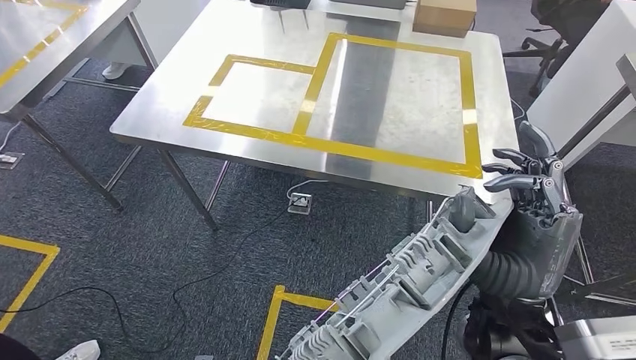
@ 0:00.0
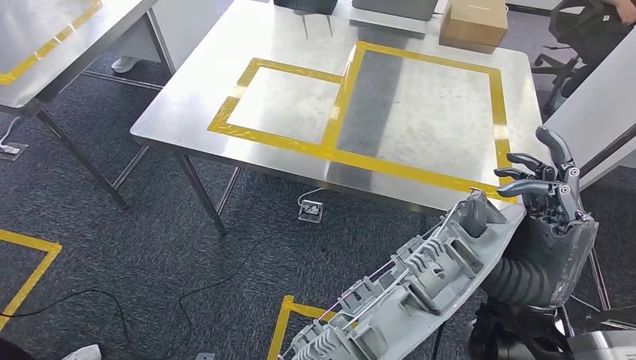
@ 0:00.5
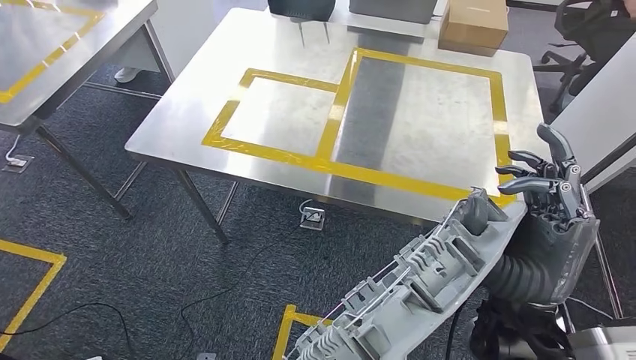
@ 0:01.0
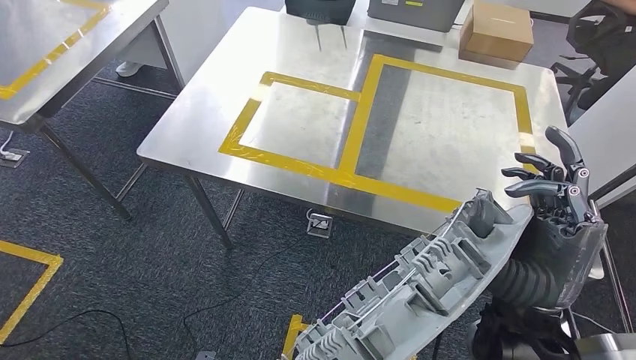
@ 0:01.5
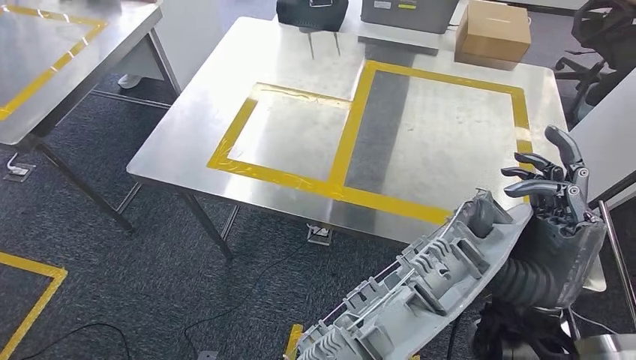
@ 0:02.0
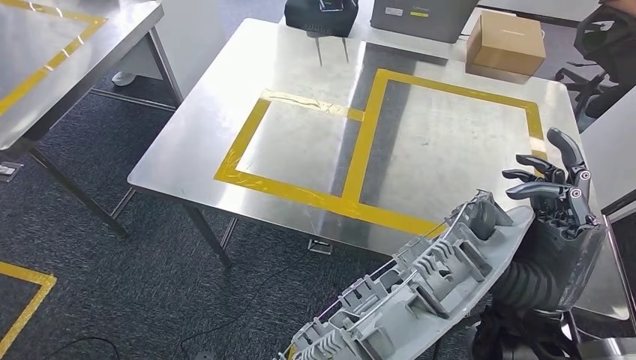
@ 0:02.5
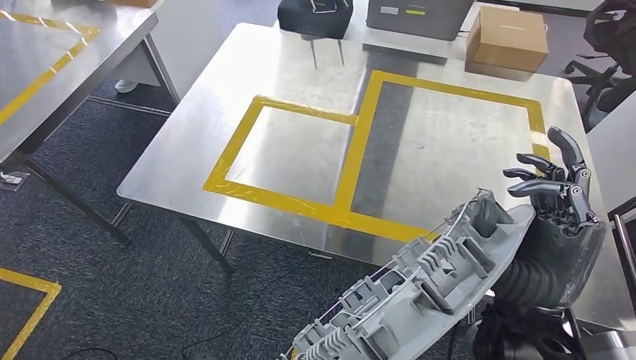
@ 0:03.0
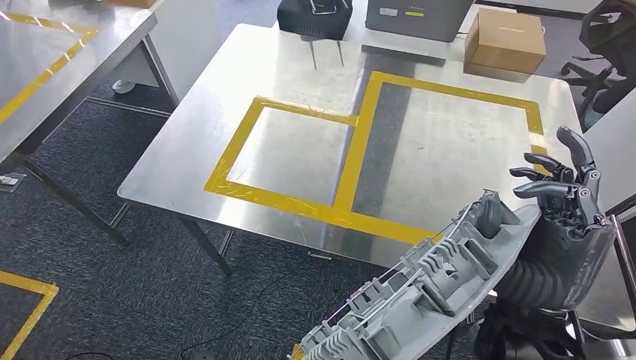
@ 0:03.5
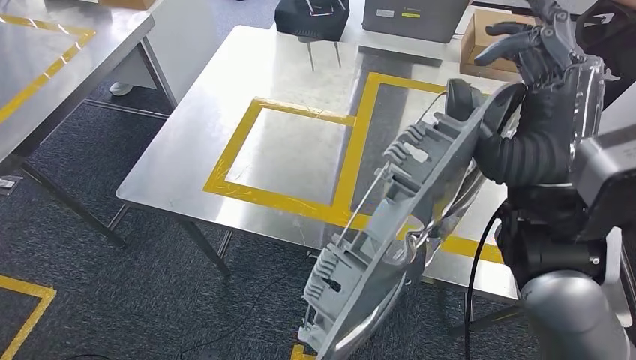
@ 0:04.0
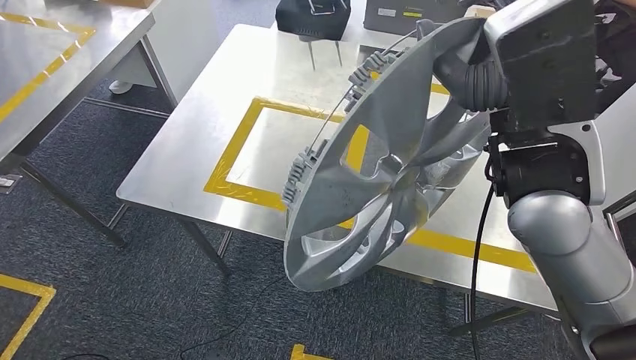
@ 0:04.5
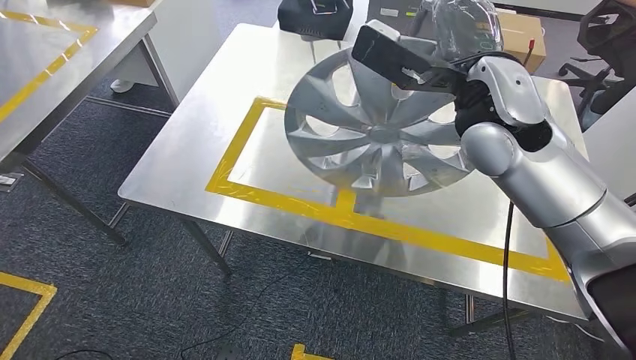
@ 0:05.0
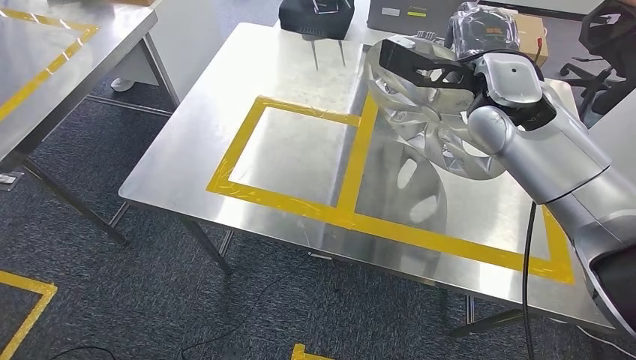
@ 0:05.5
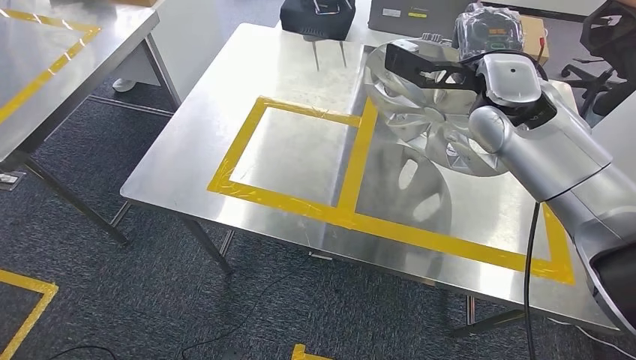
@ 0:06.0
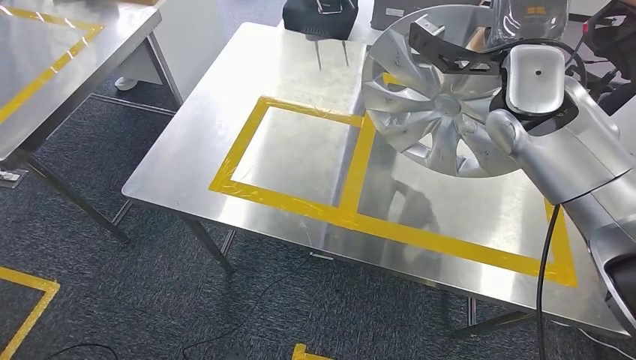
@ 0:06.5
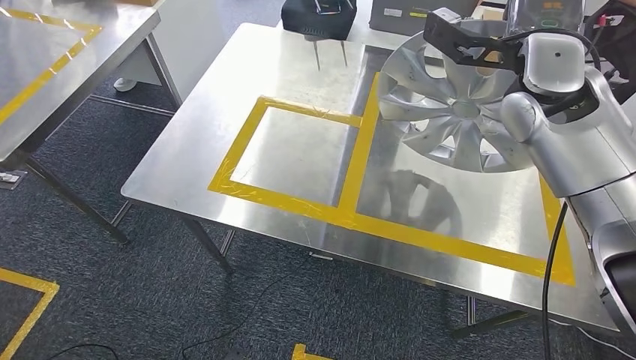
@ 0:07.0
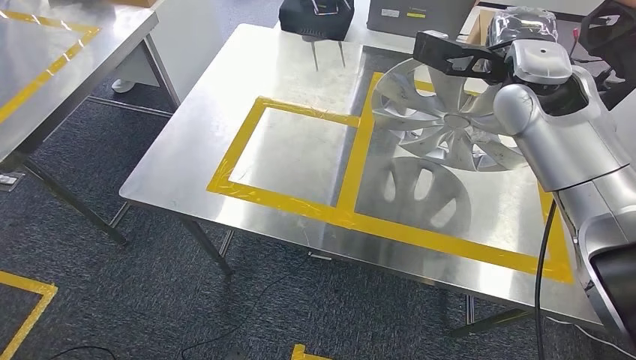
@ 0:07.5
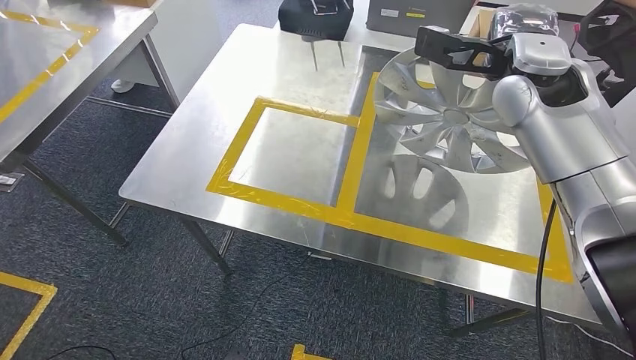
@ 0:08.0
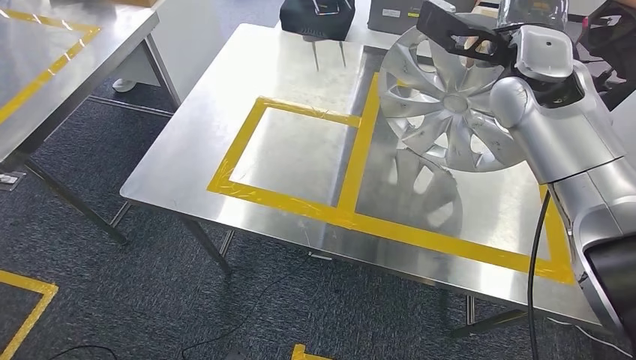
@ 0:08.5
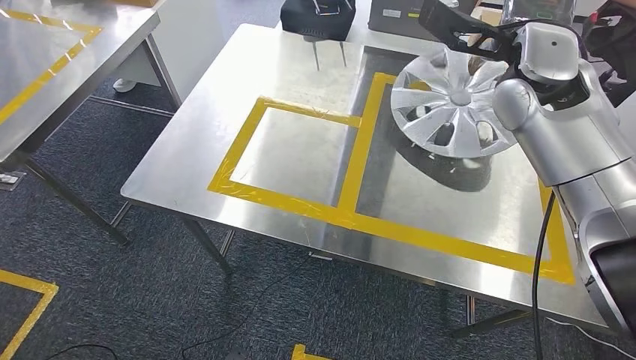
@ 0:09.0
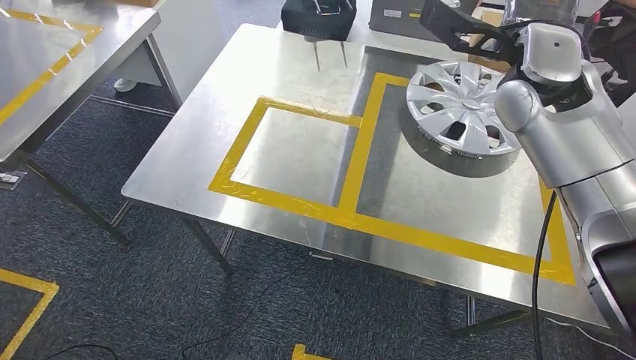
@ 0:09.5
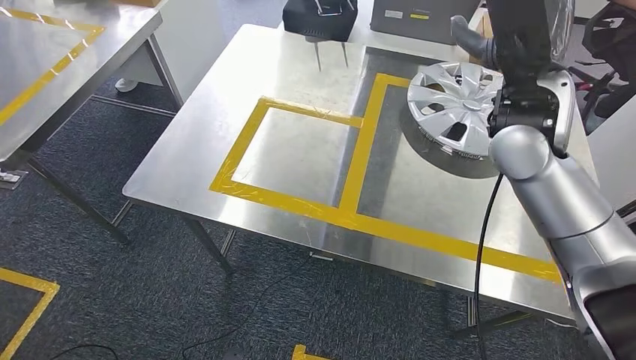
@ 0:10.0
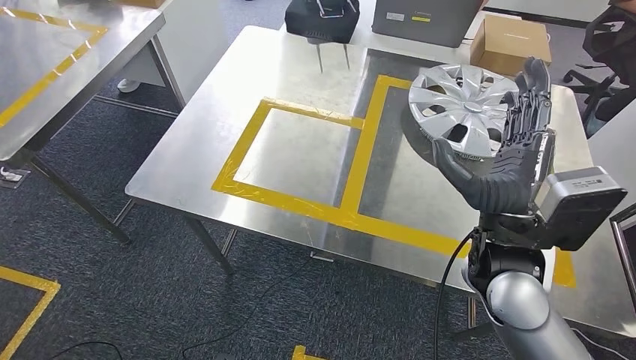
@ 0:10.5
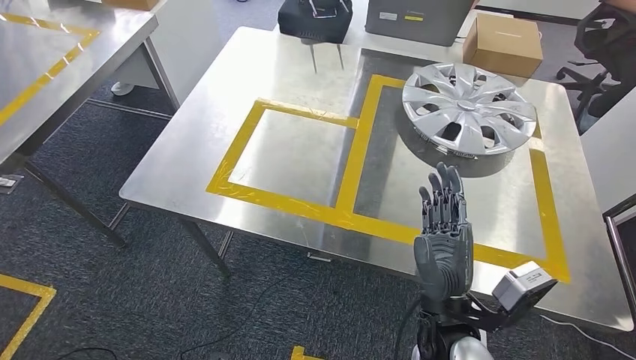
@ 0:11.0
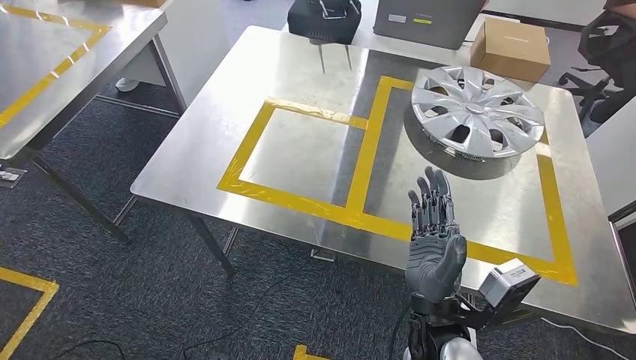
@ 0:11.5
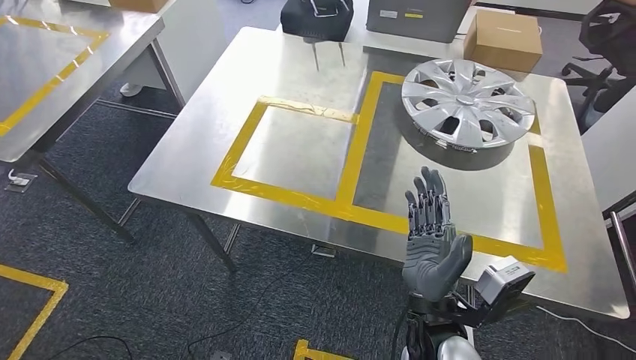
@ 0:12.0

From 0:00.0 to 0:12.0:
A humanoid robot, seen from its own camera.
Step, from 0:00.0 to 0:10.5: Insert the small component into the corresponding slot on the workbench.
From 0:06.0 to 0:08.0: The hands move only a little.

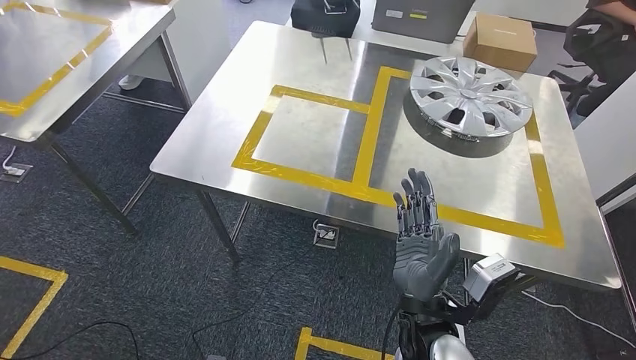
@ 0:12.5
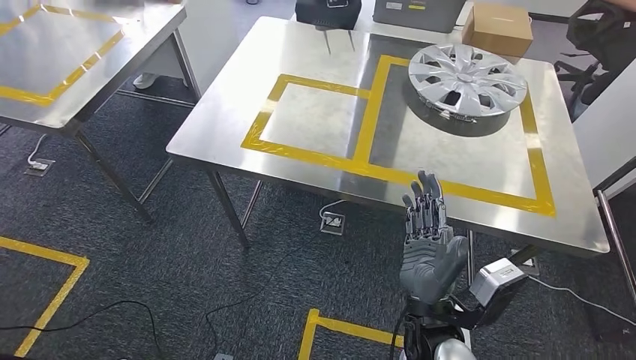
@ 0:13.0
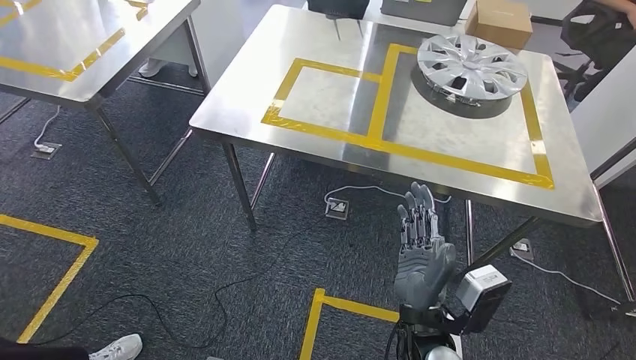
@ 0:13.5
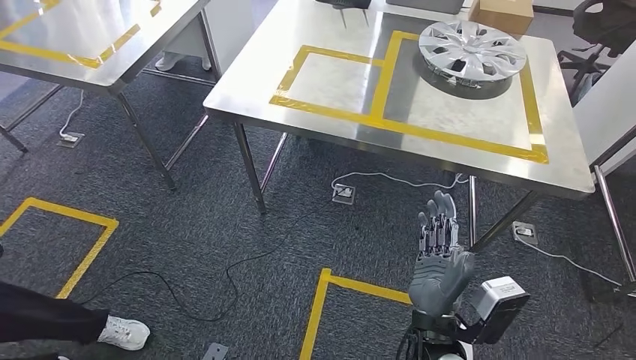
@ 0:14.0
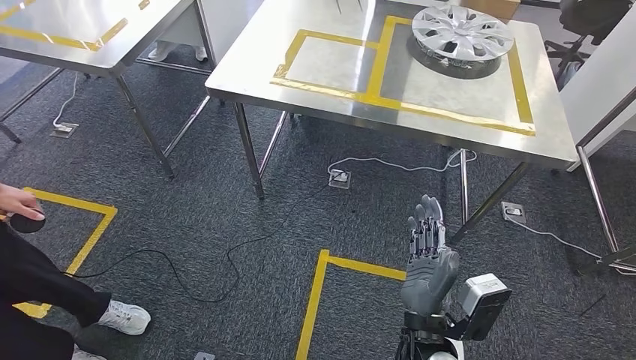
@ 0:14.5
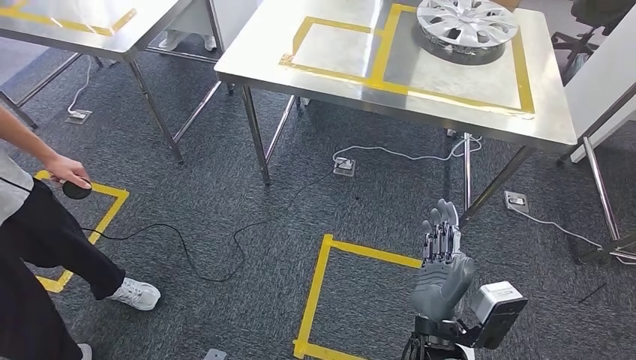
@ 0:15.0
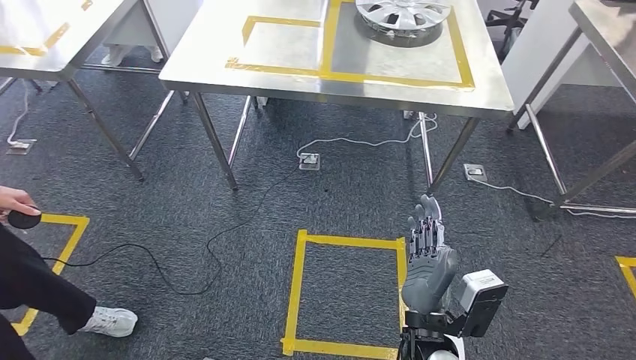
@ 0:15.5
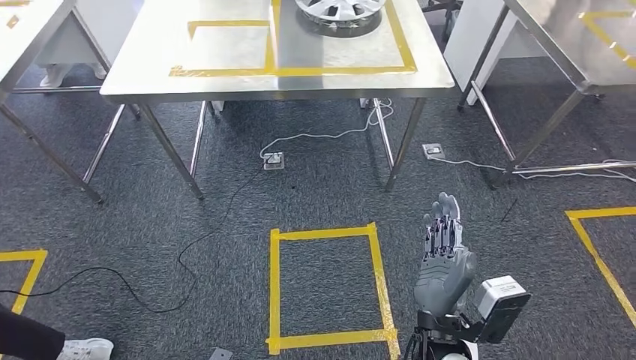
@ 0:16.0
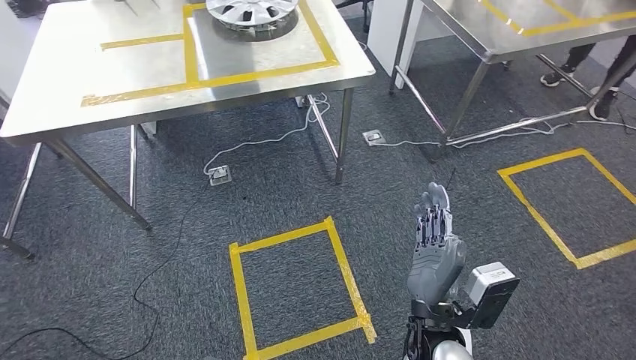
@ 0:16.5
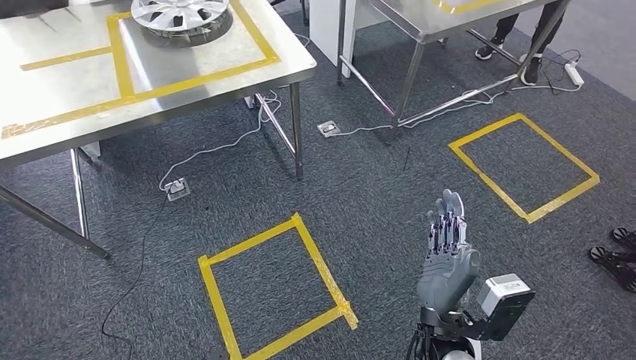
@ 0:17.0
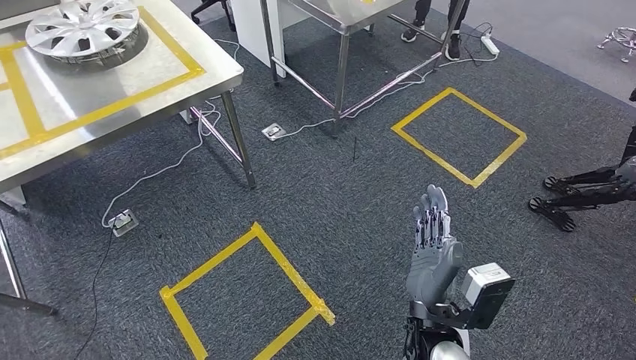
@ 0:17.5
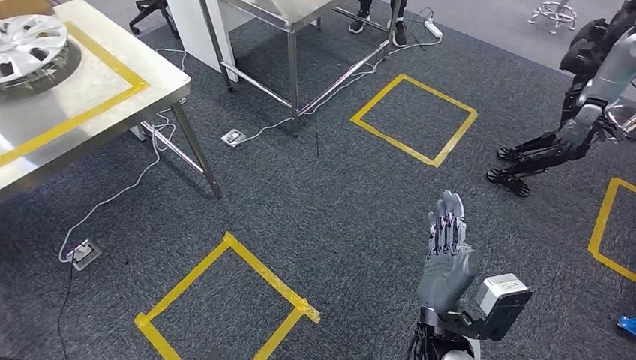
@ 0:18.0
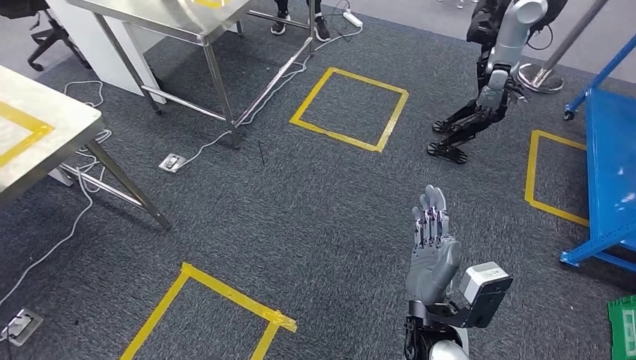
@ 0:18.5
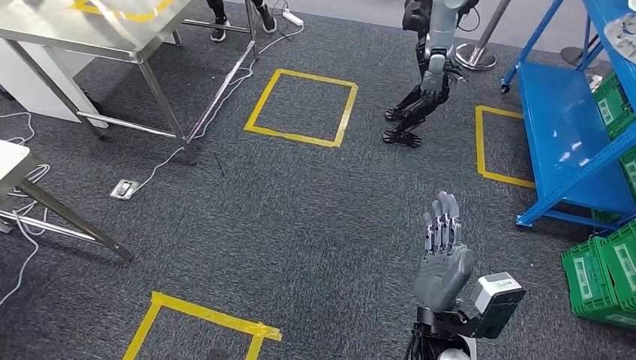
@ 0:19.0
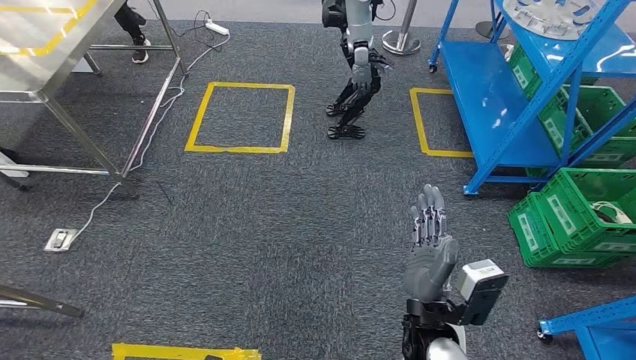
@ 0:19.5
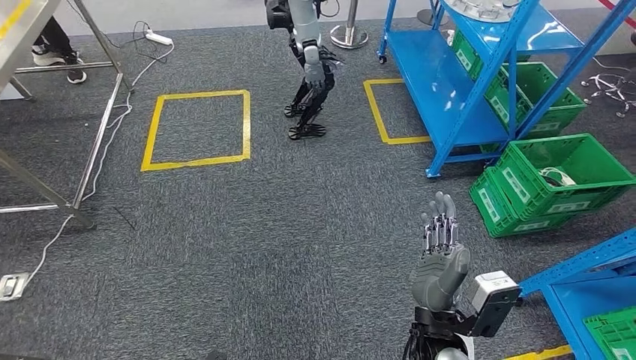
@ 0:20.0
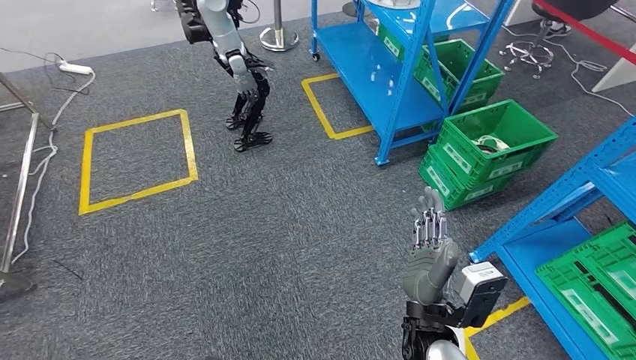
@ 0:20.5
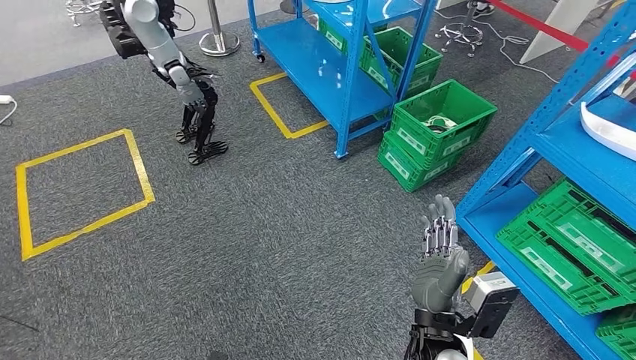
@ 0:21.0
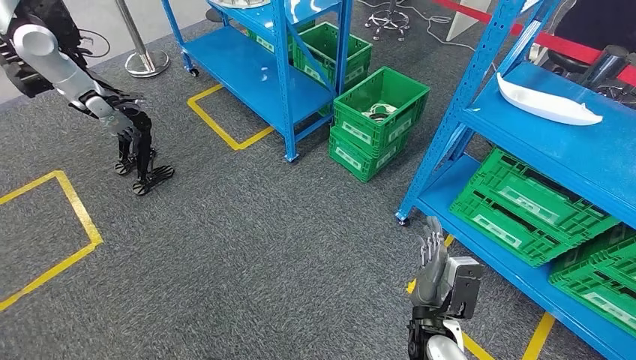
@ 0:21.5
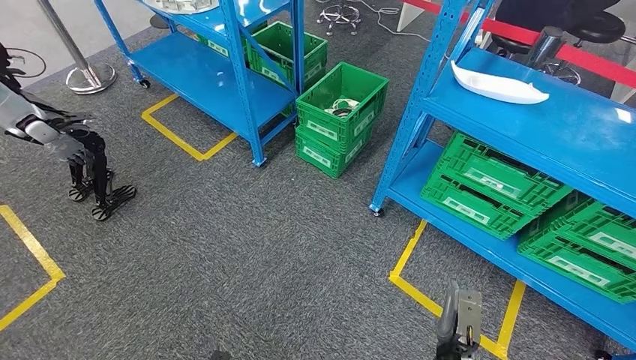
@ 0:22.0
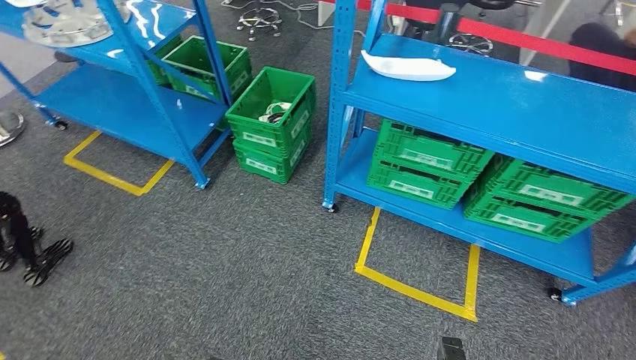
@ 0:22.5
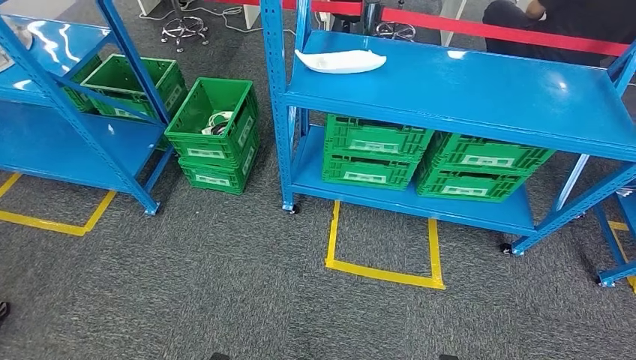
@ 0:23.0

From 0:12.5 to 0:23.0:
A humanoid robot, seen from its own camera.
Step, from 0:12.5 to 0:23.0: Return to the initial position at the workbench.
